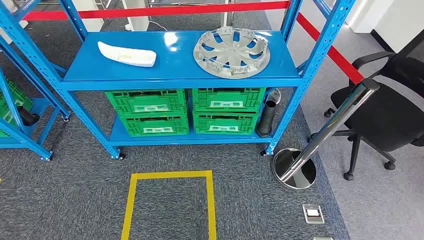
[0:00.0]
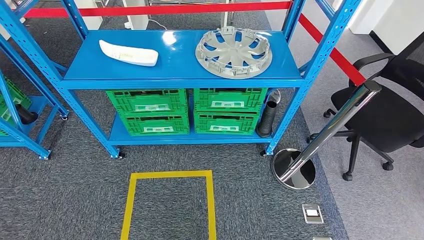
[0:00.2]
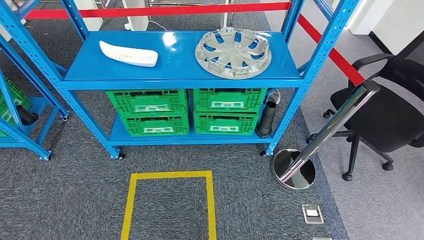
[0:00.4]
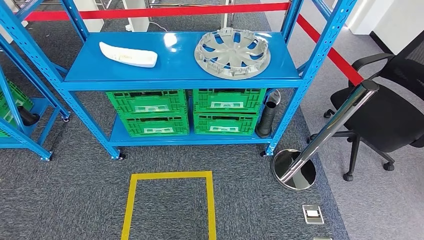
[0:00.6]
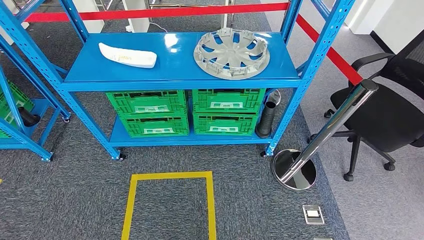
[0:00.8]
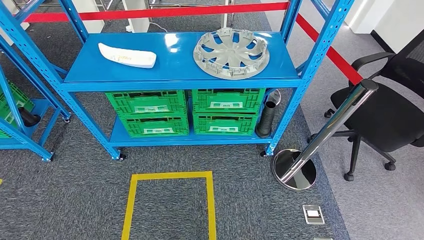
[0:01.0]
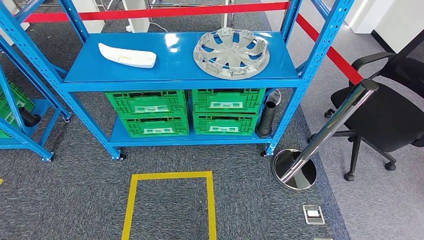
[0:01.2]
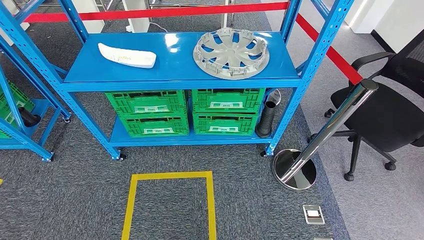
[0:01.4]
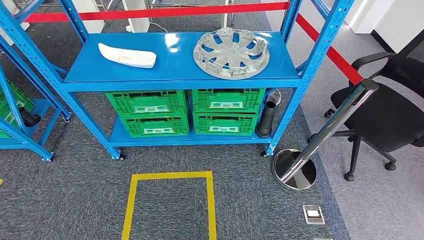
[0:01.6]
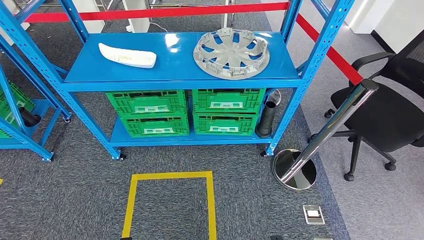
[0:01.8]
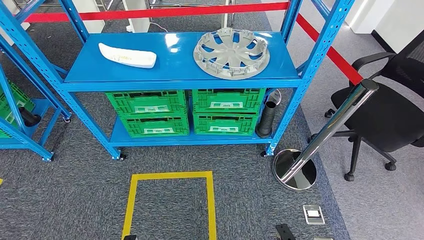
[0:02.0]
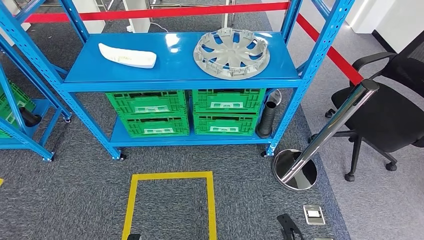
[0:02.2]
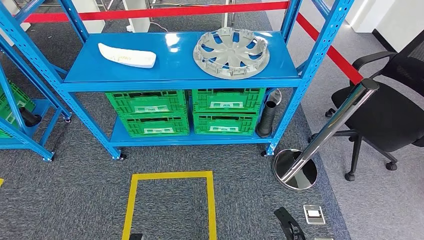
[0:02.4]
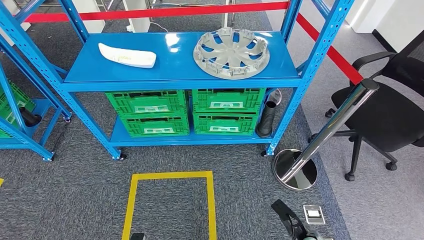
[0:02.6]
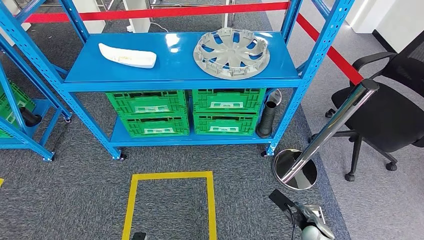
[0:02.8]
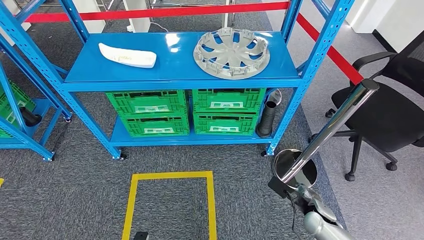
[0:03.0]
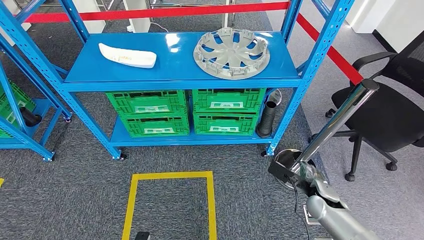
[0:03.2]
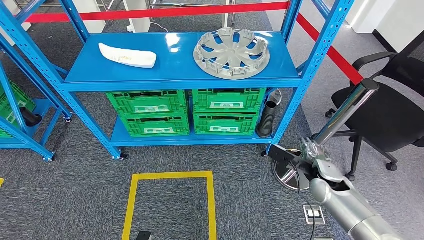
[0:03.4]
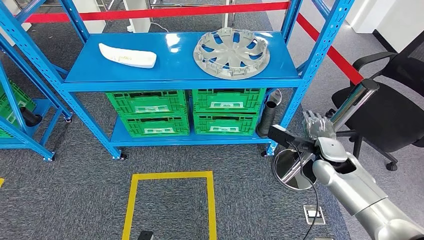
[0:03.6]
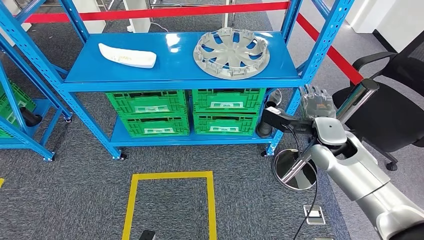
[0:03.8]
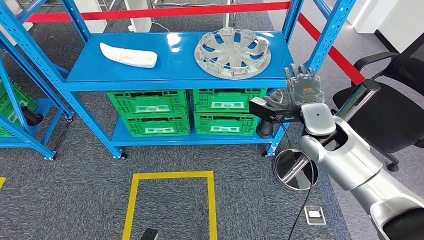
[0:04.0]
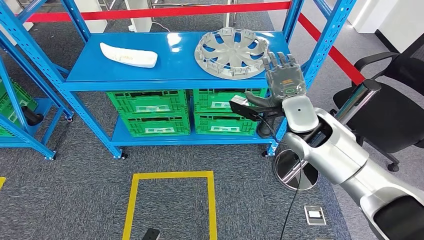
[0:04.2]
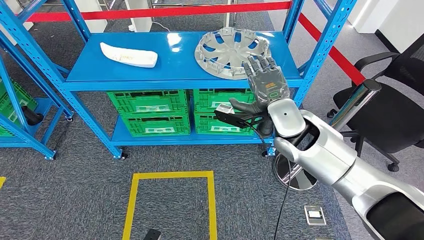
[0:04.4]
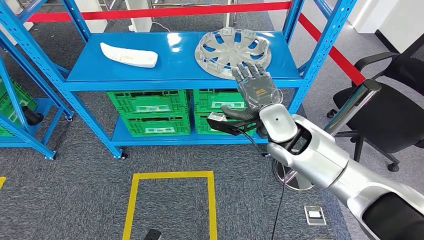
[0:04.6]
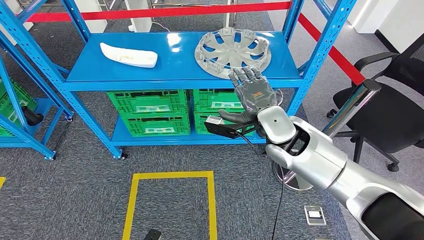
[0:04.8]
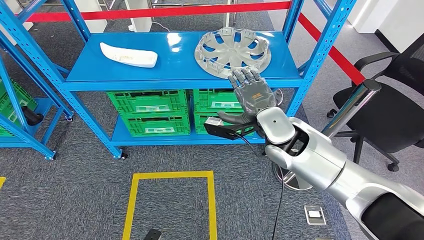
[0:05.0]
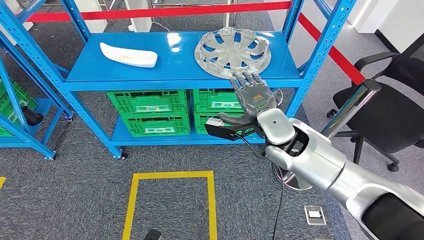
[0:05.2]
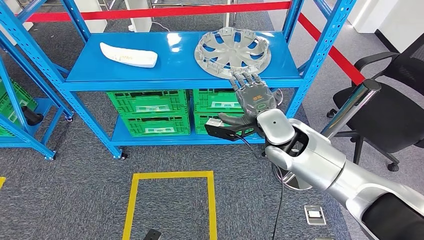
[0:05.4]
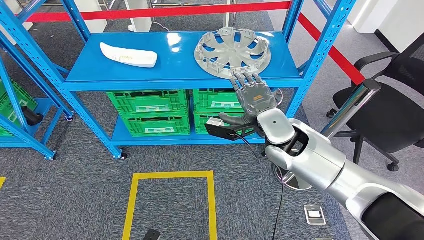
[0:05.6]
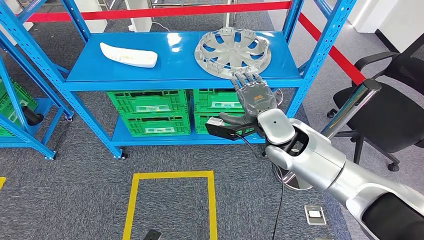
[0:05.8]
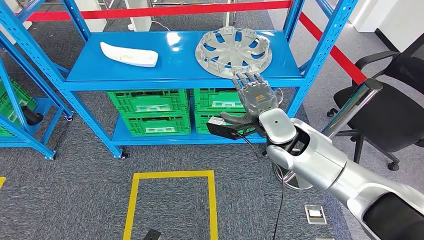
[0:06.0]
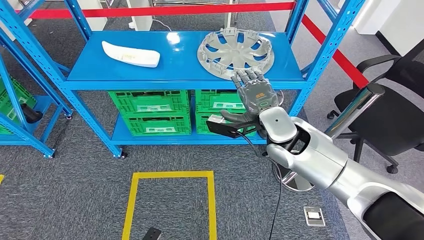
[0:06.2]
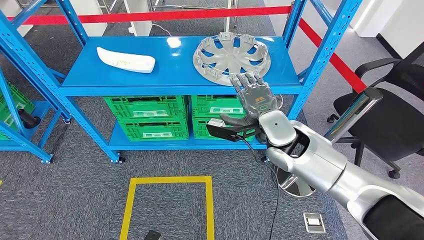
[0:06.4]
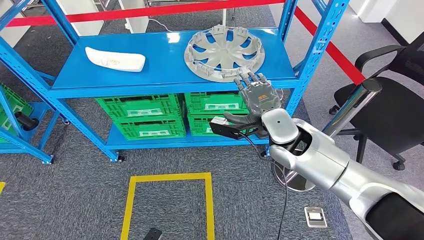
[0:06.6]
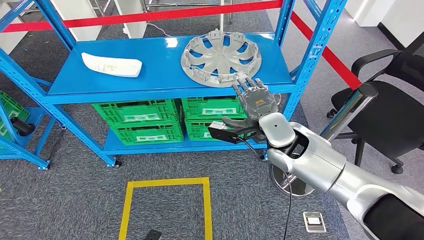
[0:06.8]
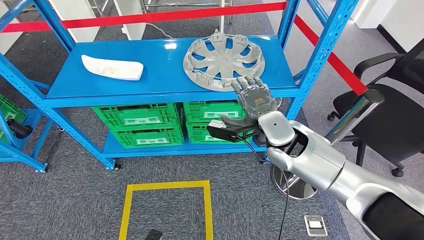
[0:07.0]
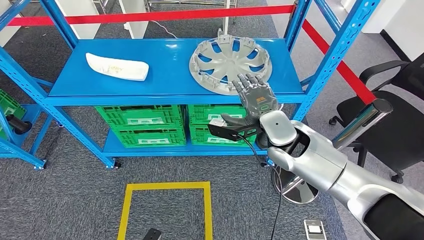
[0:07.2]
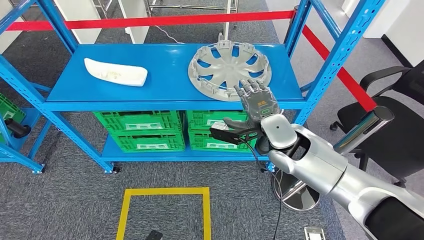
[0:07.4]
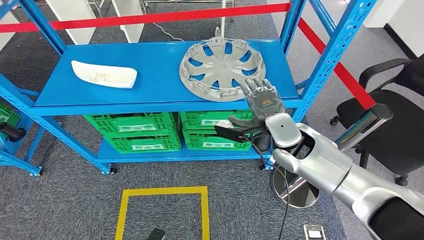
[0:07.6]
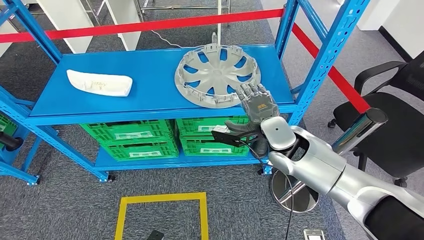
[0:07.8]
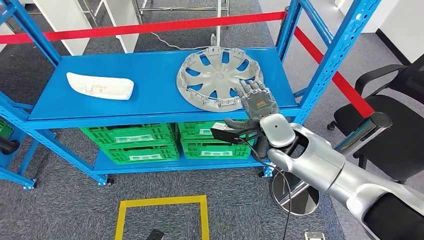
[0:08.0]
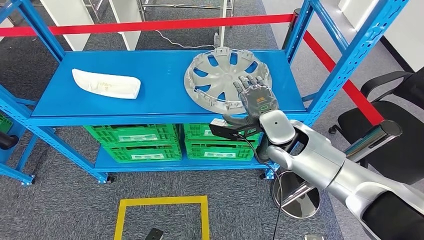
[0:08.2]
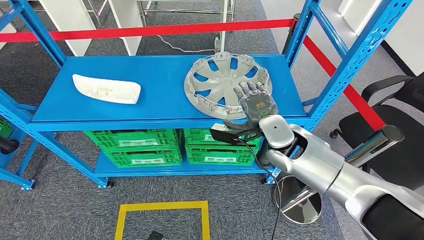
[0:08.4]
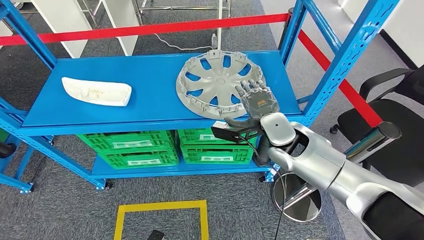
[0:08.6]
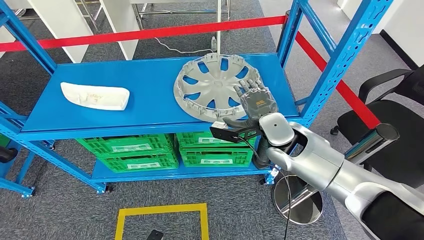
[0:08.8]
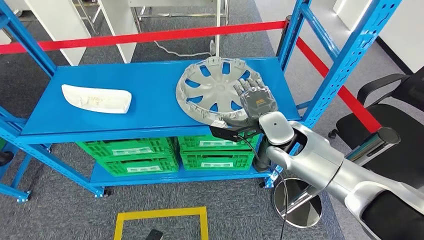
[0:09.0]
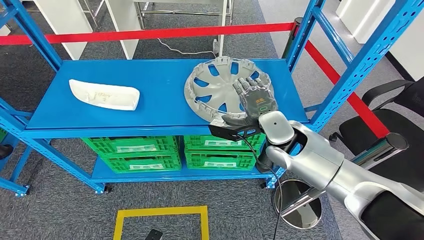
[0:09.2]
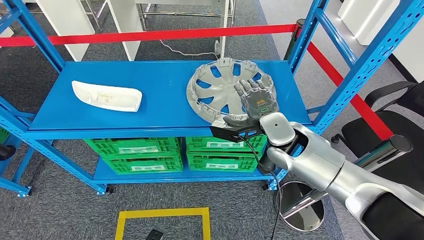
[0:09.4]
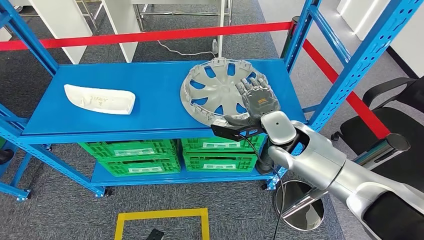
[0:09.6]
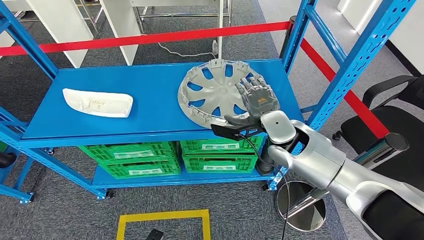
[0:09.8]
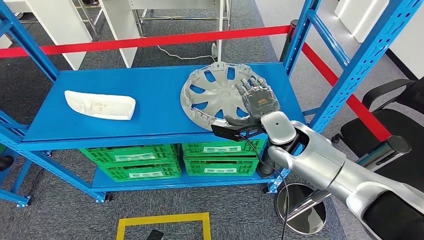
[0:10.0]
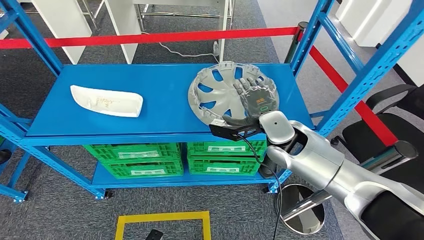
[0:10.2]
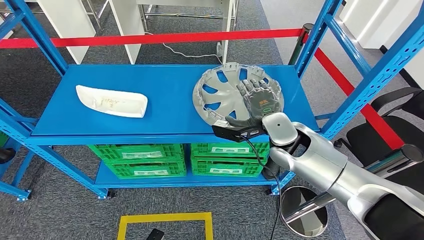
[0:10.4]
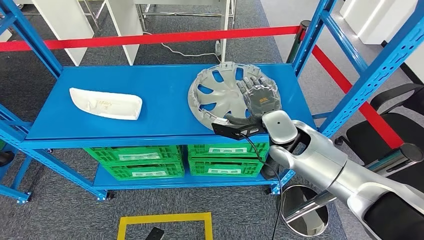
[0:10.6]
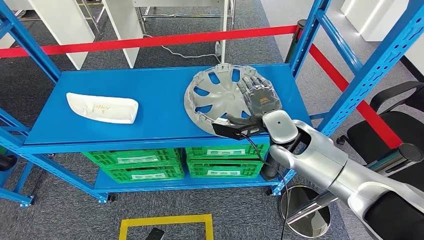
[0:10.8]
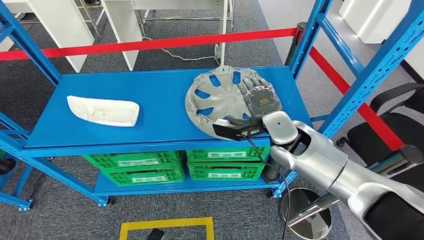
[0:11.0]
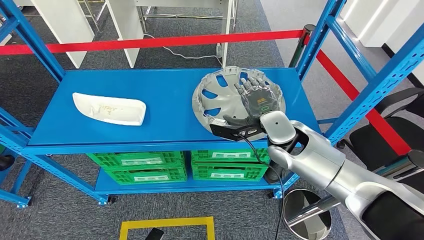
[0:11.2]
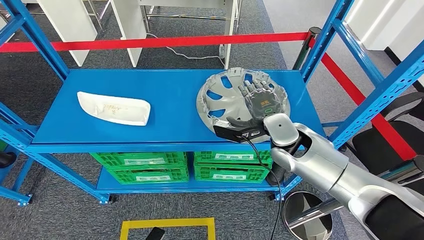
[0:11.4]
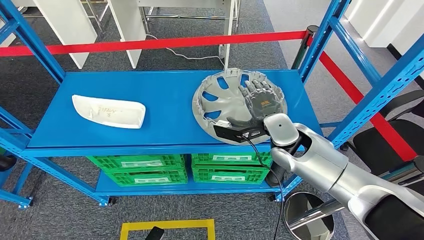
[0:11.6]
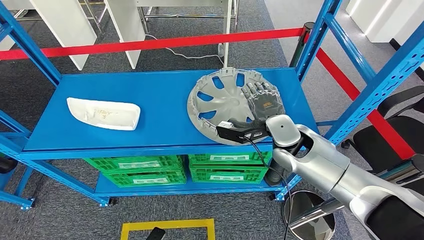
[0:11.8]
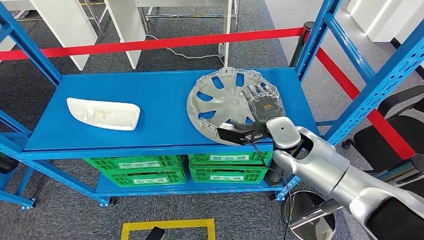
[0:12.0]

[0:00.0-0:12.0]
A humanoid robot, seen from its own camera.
0:01.6 to 0:03.0: The right hand travels forward, upward and to the right by roughly 25 cm.
0:04.4 to 0:06.0: There are only small adjustments of the hands.

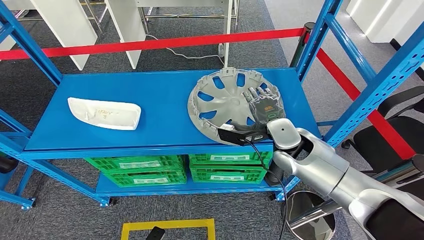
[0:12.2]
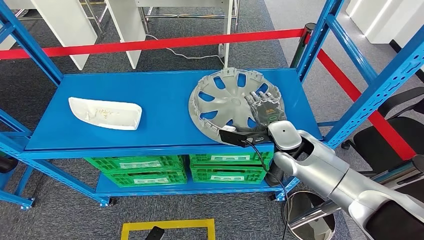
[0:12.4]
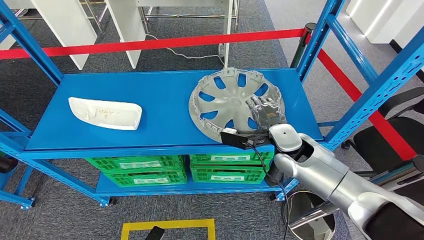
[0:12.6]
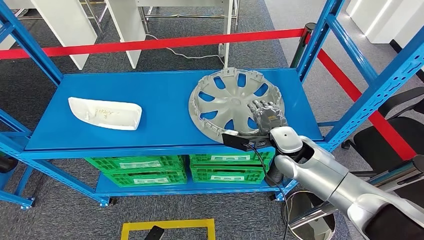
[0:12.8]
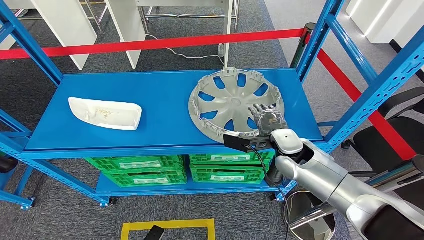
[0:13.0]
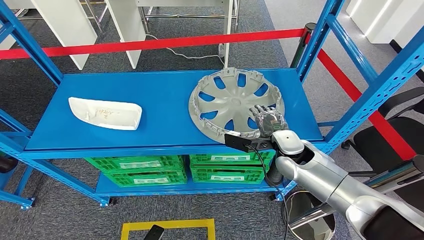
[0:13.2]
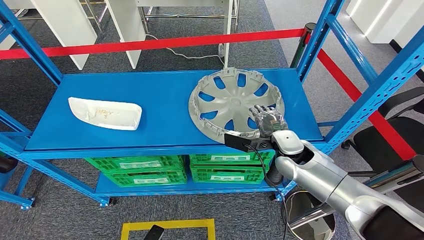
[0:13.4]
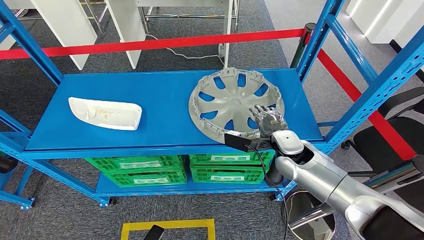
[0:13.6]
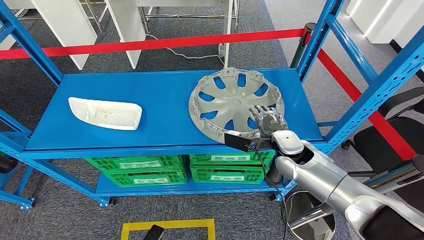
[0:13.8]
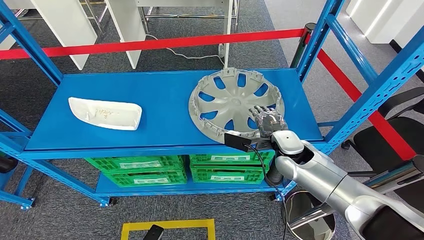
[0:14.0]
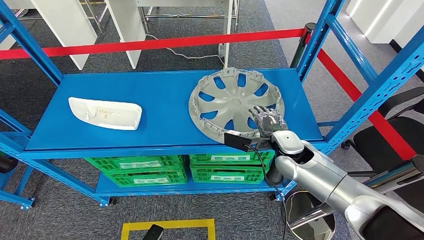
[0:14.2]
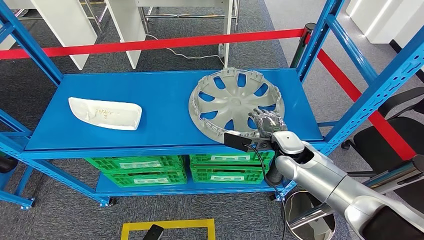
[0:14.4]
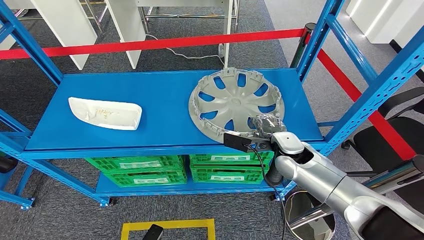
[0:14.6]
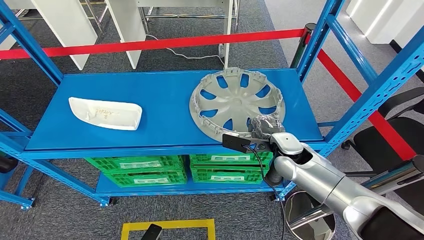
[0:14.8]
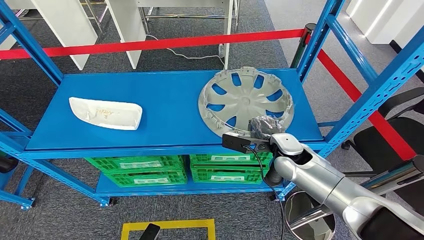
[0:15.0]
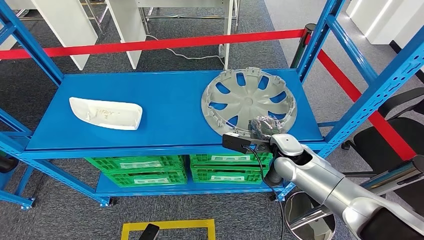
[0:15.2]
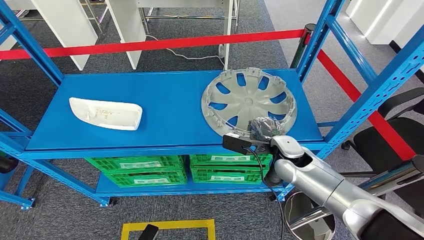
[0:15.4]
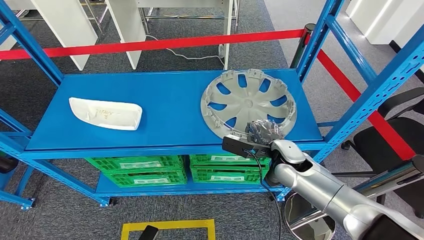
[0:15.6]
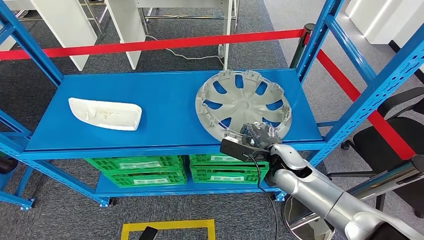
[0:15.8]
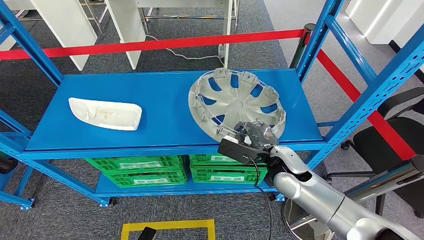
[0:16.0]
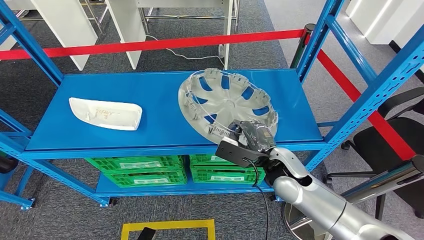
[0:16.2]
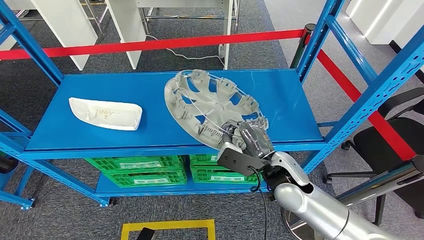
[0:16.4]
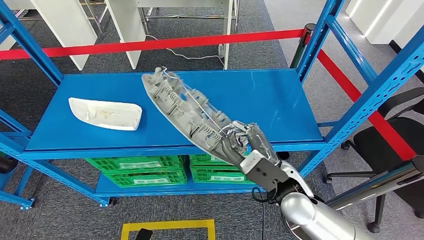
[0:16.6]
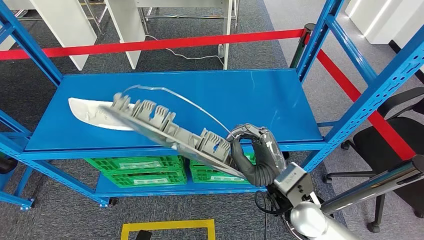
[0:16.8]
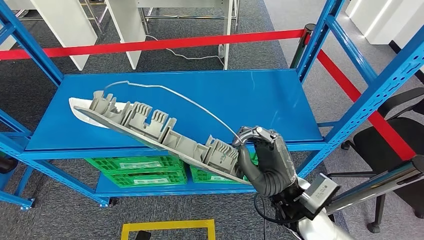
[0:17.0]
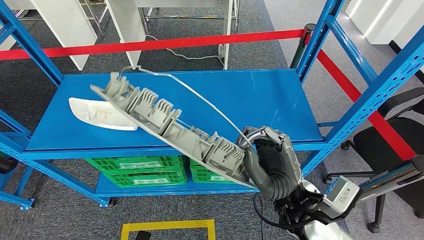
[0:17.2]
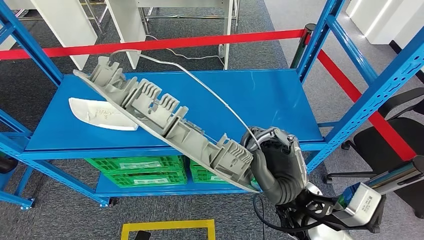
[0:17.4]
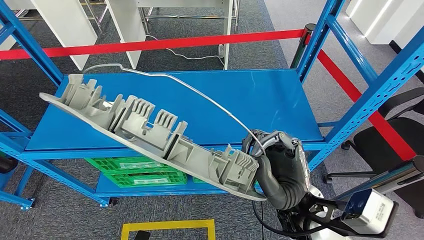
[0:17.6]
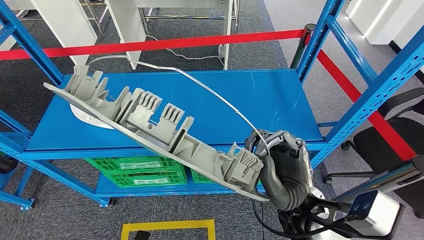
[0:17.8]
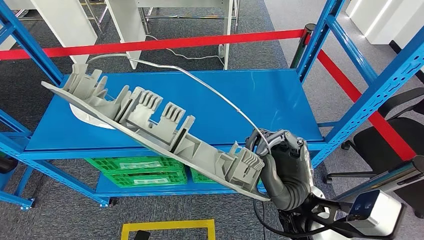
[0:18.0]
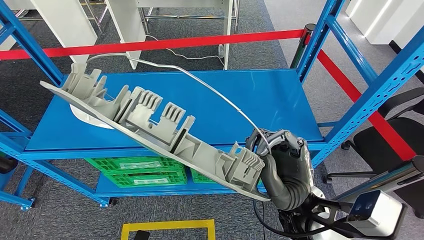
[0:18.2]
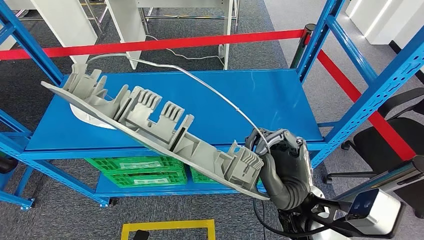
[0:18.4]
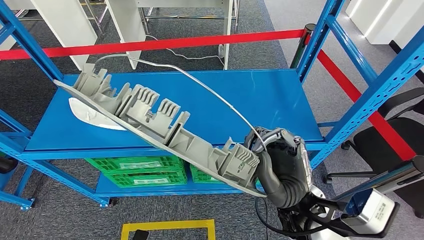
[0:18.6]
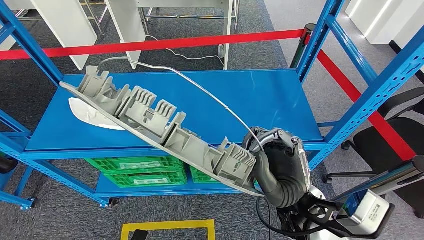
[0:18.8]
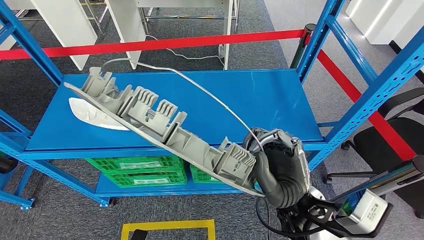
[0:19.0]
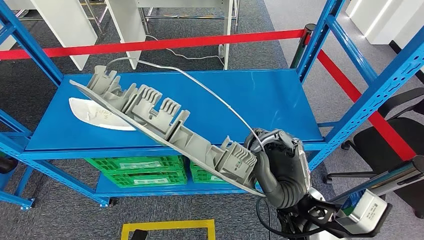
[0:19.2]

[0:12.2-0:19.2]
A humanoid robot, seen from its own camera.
Step, 0:12.2 to 0:18.2: Pick up the large material from the shelf.
0:12.2 to 0:13.6: The hands stay close to where they were, moving slightly.
0:13.6 to 0:15.0: The hands make only small movements.
0:15.0 to 0:16.4: The right hand moves backward, some 10 cm.
0:17.8 to 0:19.2: There are only small adjustments of the hands.
